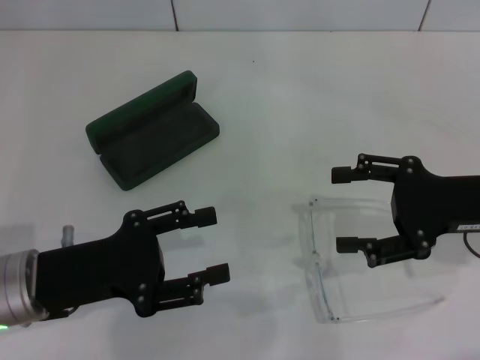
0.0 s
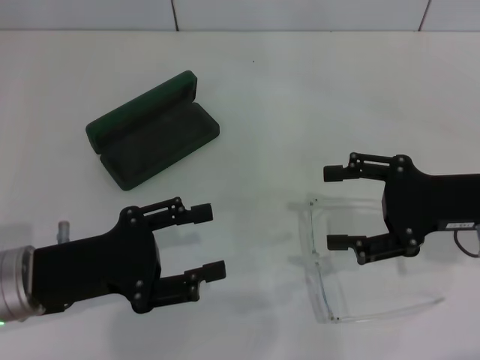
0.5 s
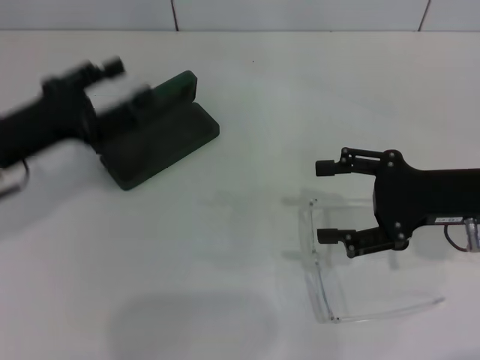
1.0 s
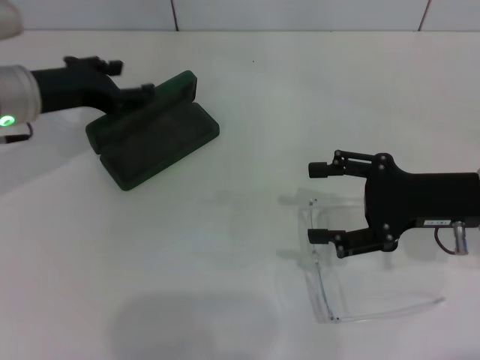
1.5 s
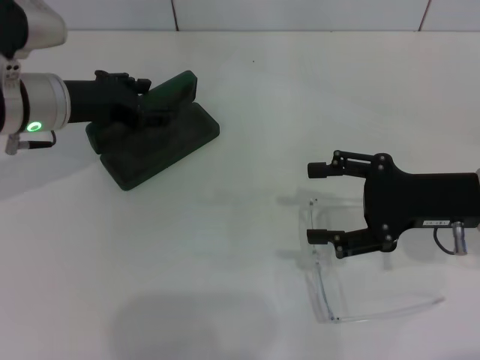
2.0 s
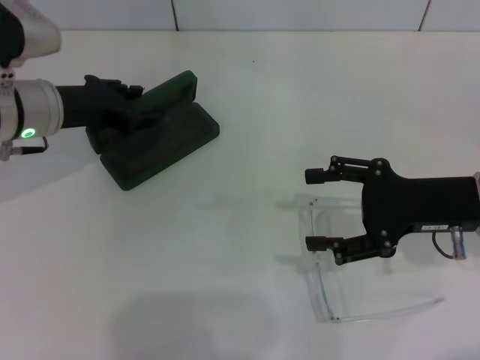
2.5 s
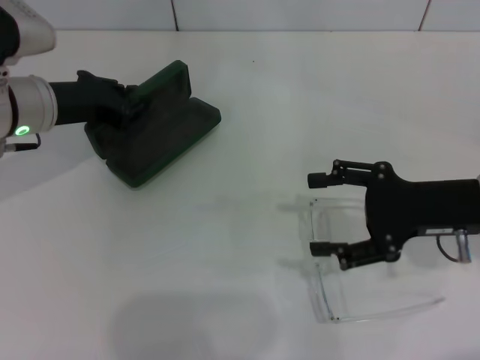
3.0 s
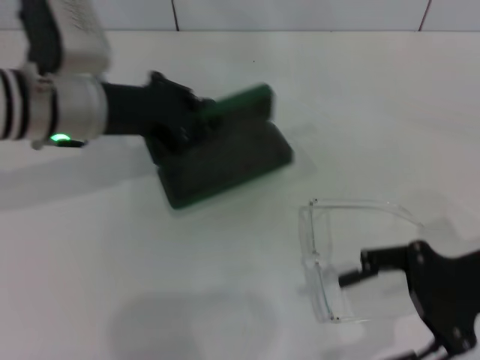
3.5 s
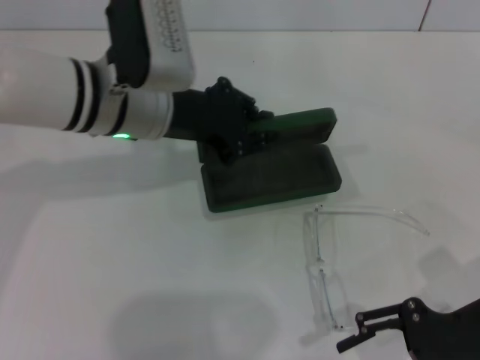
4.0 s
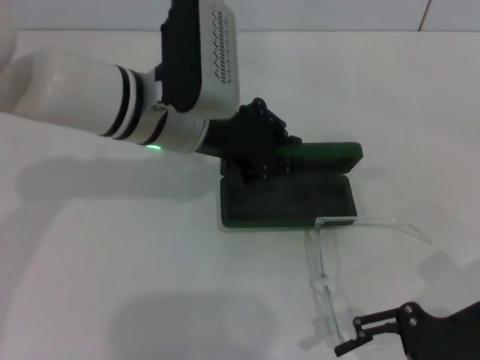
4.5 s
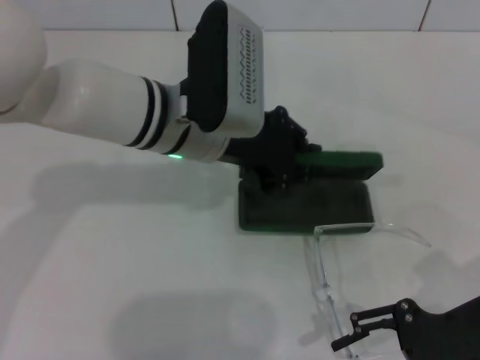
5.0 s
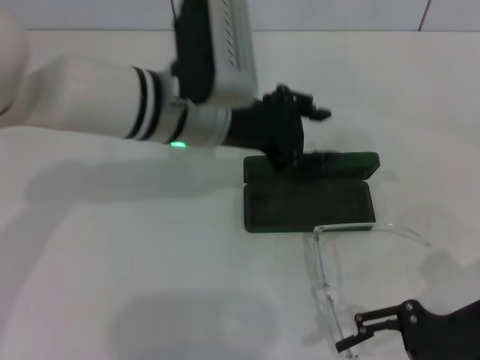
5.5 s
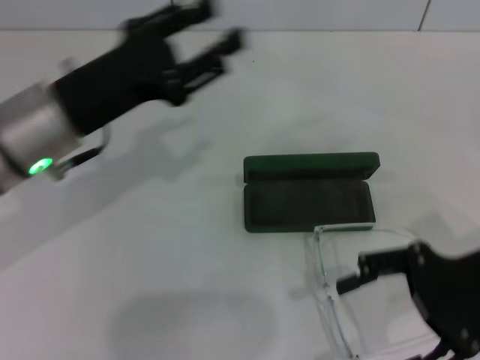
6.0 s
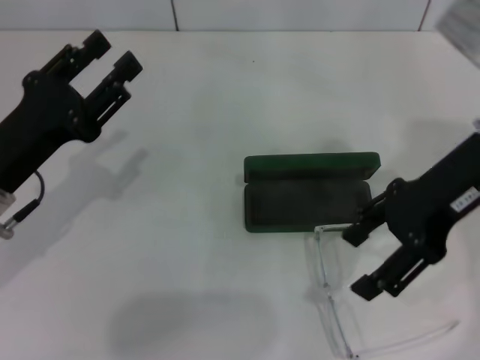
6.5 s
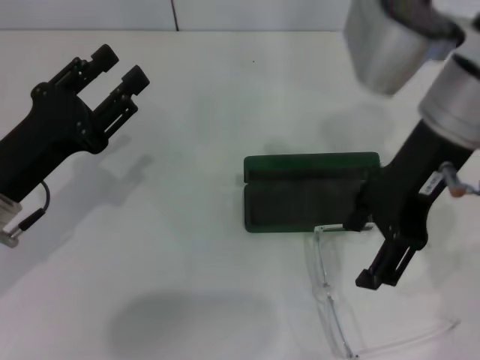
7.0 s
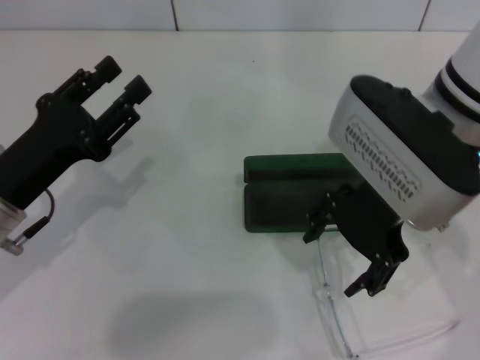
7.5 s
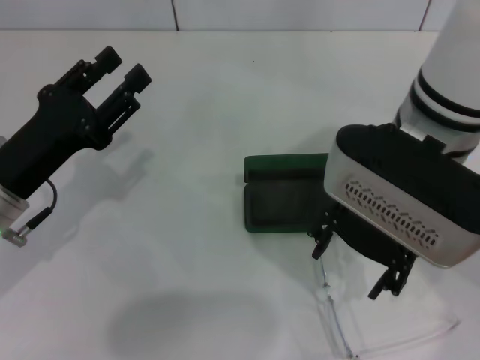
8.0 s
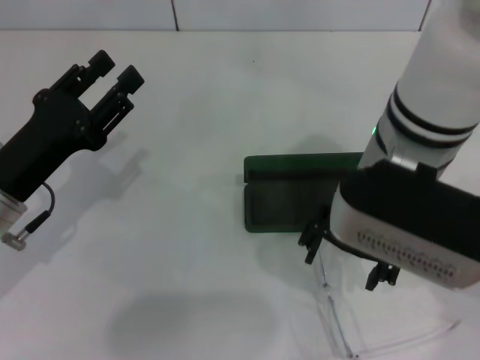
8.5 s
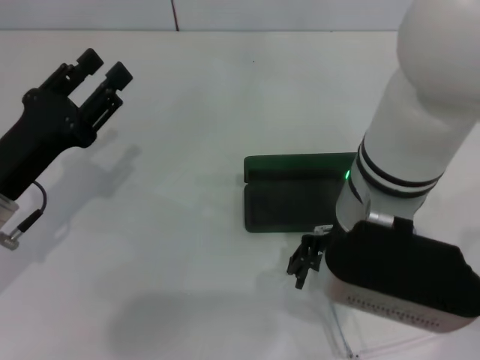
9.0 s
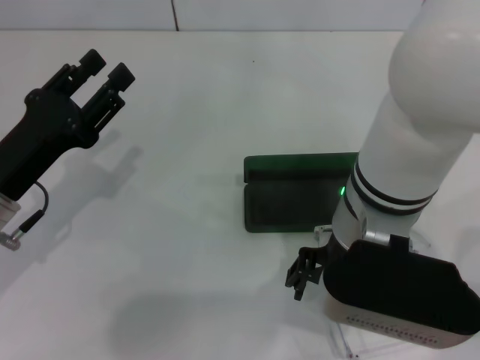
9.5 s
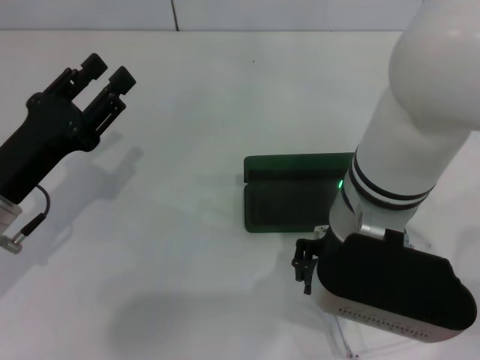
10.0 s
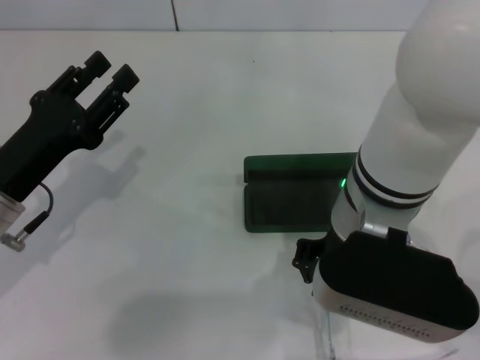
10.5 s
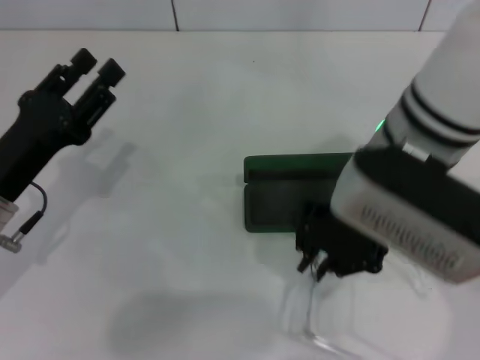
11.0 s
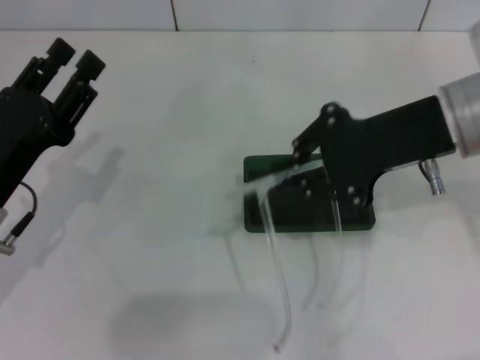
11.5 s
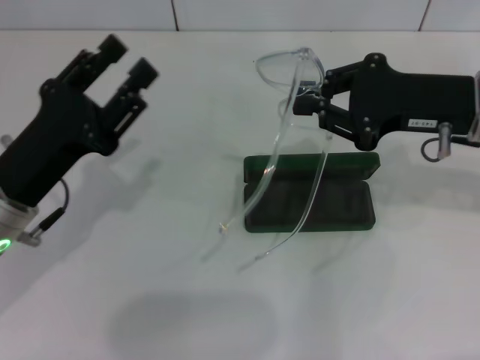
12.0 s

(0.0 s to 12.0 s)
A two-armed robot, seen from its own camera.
Step, 0.0 s - 2.5 s: Grab the glasses case with your left hand.
Step, 3.0 s - 5.0 s: Place the glasses case in the center of the table with your left hand.
Step, 5.5 s - 10.0 s: Grab the eyeglass frame with your right hand.
0.0 s - 2.0 s: The left gripper moves forward, roughly 15 cm.
2.0 s - 4.0 s: The left gripper is displaced to the right by approximately 10 cm, and closes. Meanwhile the right gripper heads backward, covering approximately 5 cm.
4.0 s - 6.0 s: The left gripper heads to the left and backward, covering approximately 10 cm, and opens its fingers.
6.0 s - 8.0 s: The right gripper is displaced to the left and upward by roughly 20 cm; the left gripper moves downward and to the left, approximately 10 cm.
8.0 s - 10.0 s: The right gripper ends up about 5 cm from where it was, and closes its fingers.
10.0 s - 12.0 s: The right gripper shifts about 15 cm to the right, and closes its fingers.

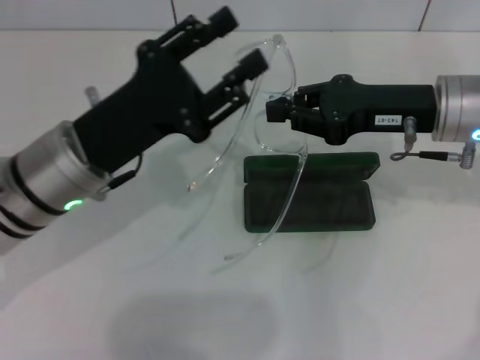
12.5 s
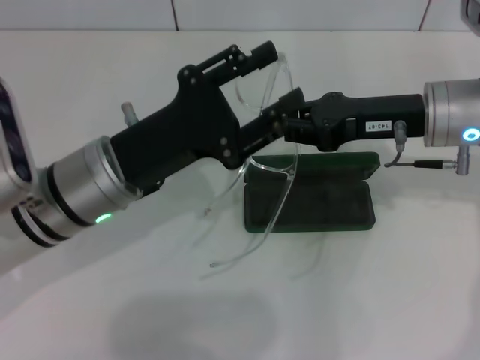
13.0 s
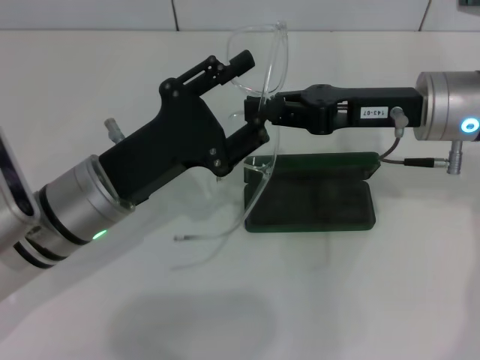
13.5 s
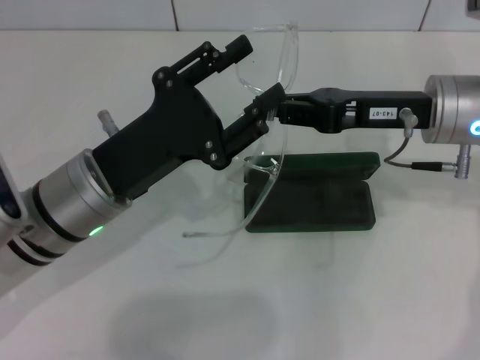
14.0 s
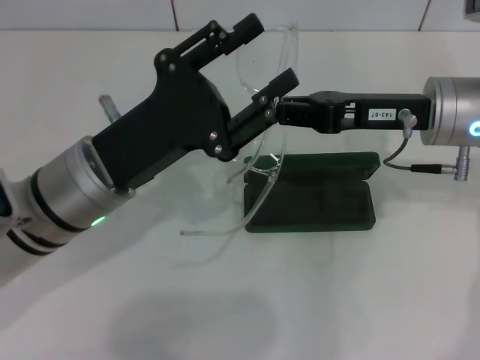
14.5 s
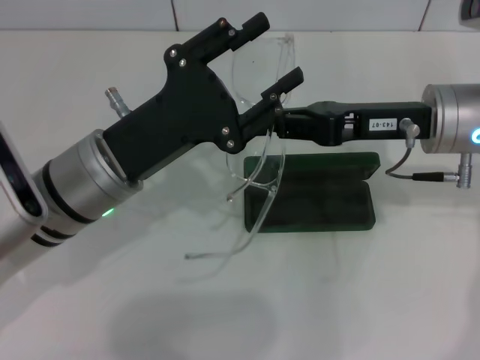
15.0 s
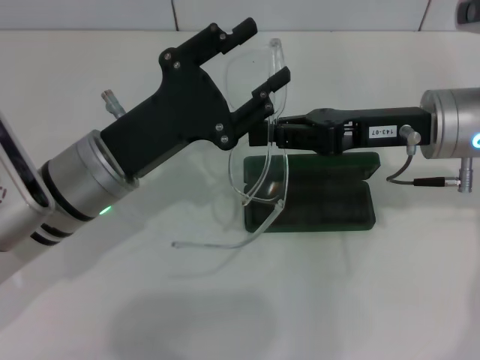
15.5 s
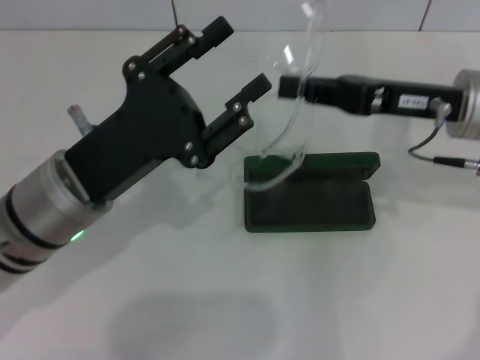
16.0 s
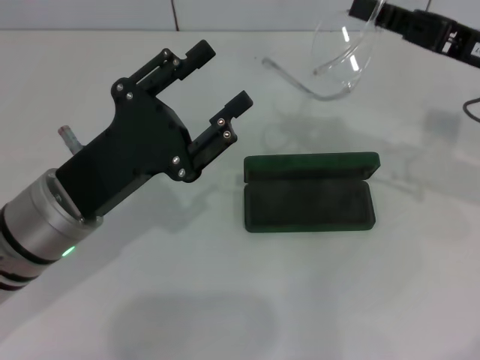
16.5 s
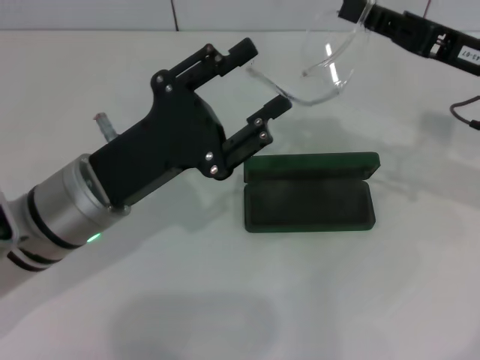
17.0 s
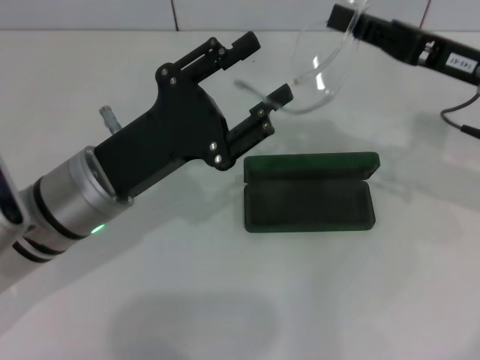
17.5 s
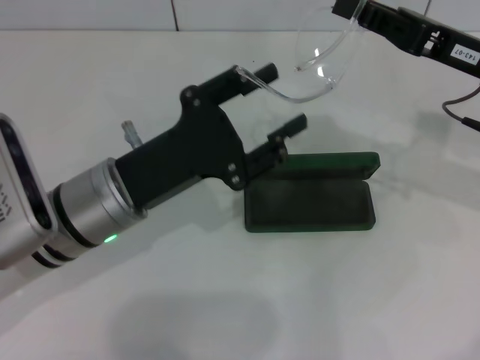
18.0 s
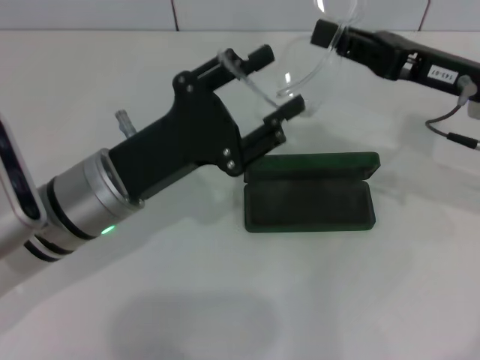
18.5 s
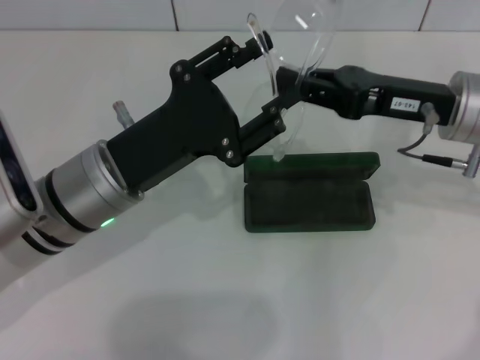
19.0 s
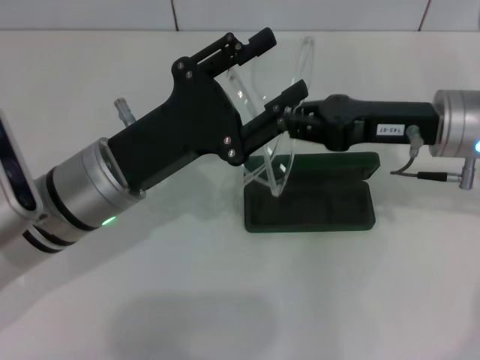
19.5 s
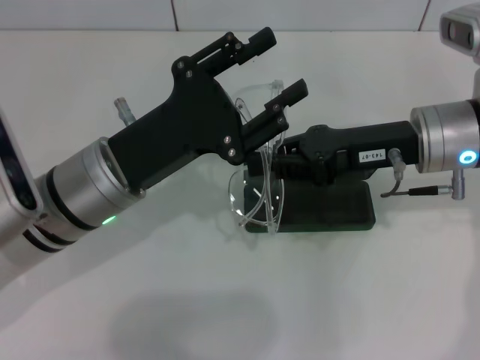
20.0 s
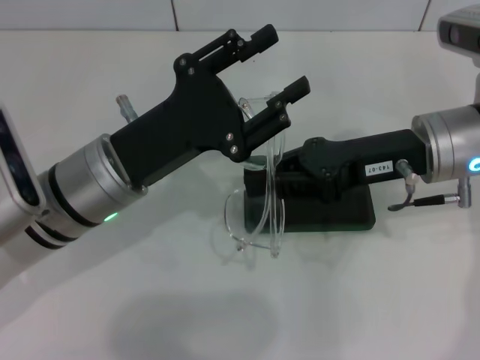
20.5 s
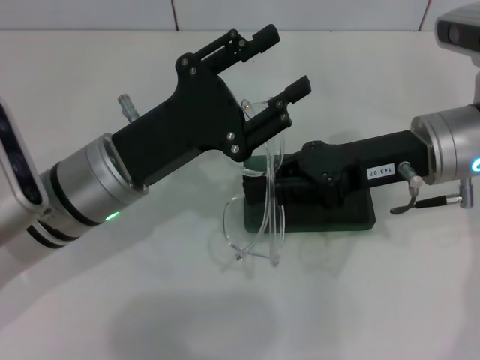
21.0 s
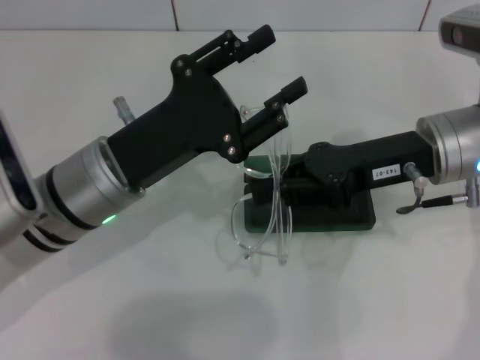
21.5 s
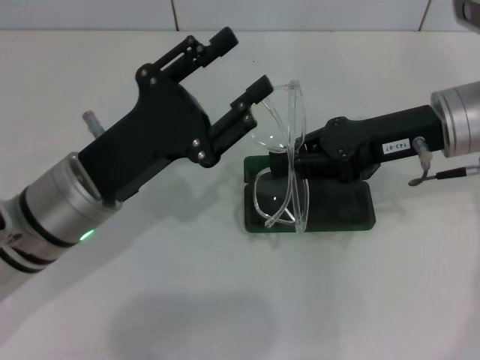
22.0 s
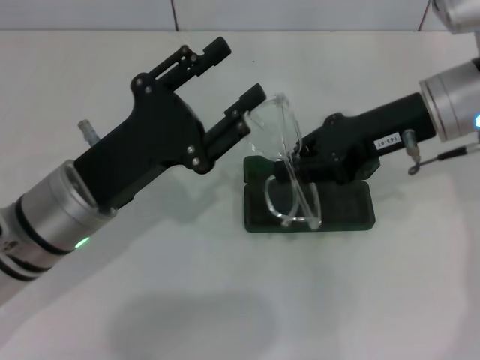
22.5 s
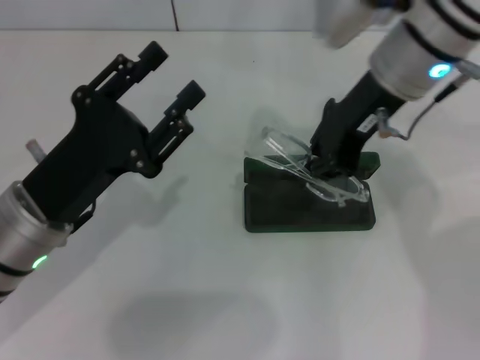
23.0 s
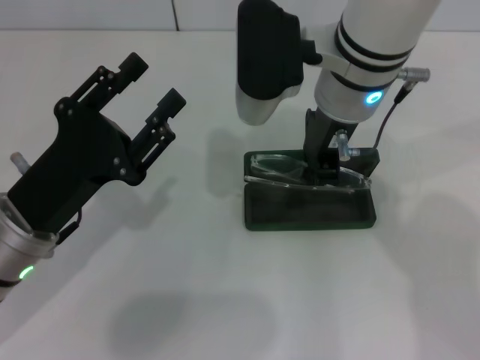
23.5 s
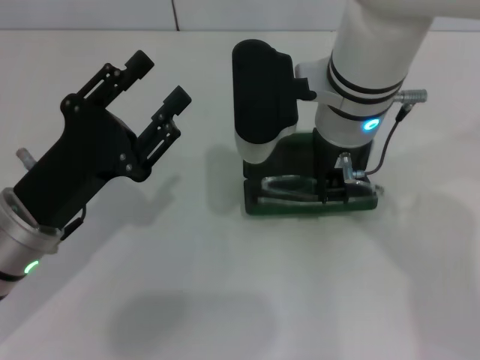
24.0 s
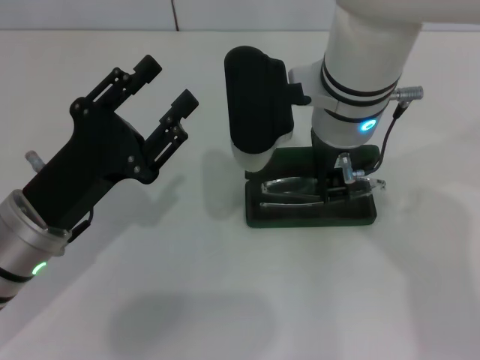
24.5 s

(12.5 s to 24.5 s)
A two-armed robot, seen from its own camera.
Step, 12.5 s - 21.0 s: Fold the frame with your left hand.
14.5 s - 16.5 s: The right gripper travels to the right by about 5 cm.
18.5 s - 20.5 s: The right gripper heads to the left, covering some 5 cm.
22.5 s - 24.5 s: The right gripper goes approximately 15 cm to the left.

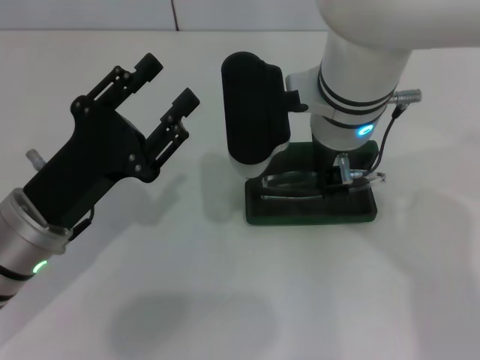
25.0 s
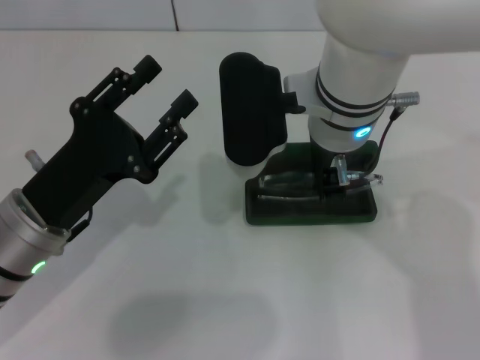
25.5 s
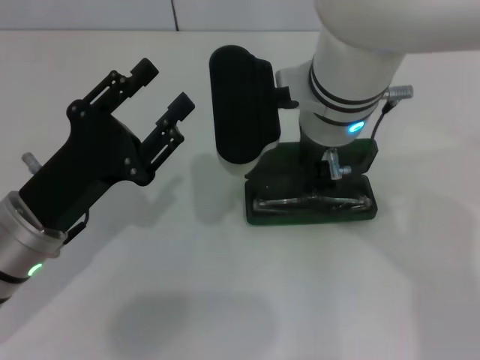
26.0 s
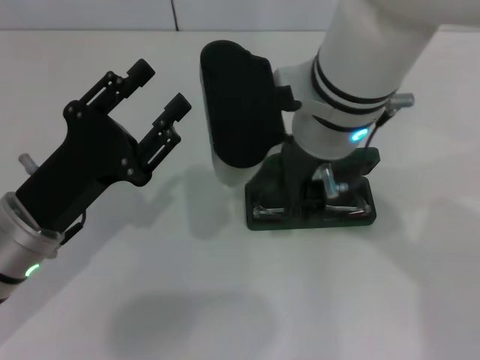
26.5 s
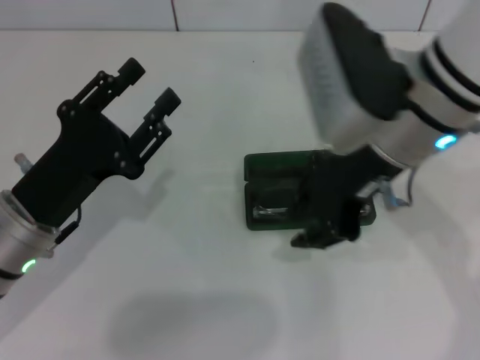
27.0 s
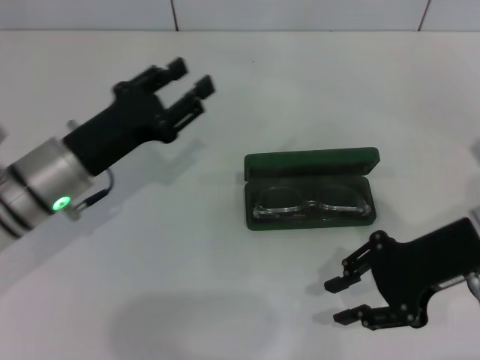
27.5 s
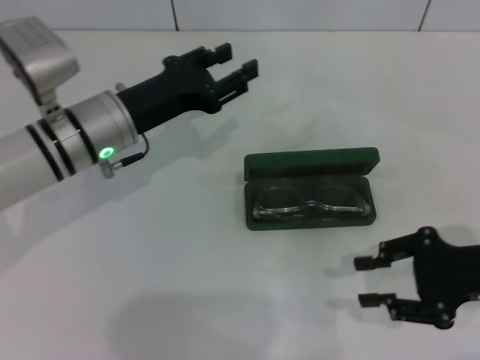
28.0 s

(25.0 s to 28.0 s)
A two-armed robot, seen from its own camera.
25.0 s - 26.5 s: The grippers stay close to where they were, moving slightly.
26.5 s - 28.0 s: The right gripper moves to the right and downward, approximately 30 cm, while the left gripper goes some 10 cm forward.
